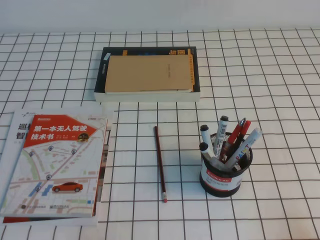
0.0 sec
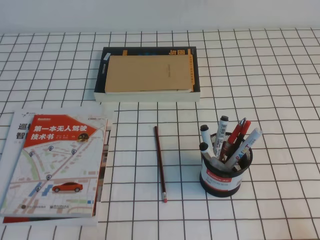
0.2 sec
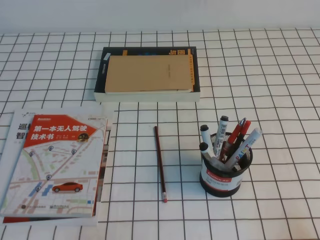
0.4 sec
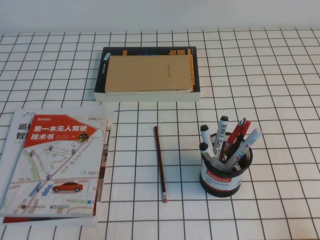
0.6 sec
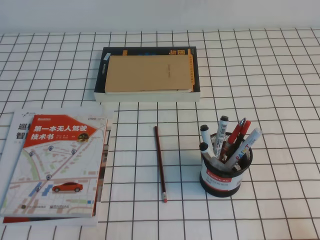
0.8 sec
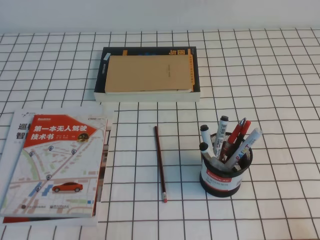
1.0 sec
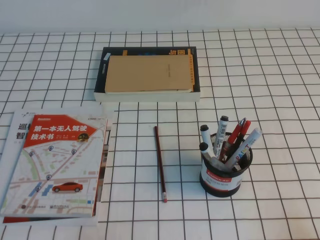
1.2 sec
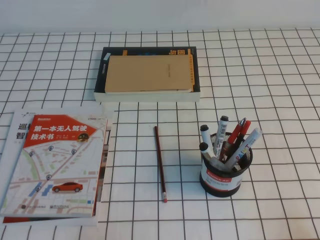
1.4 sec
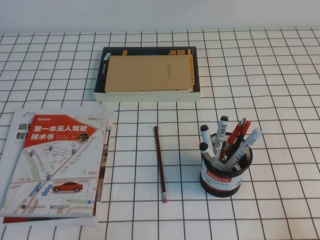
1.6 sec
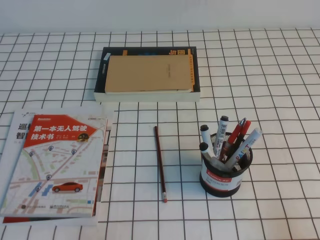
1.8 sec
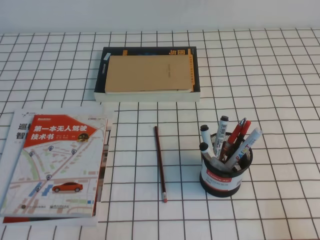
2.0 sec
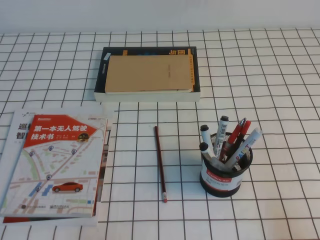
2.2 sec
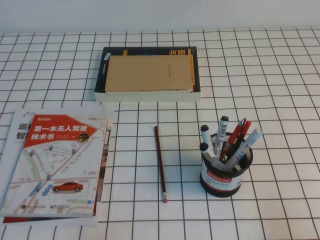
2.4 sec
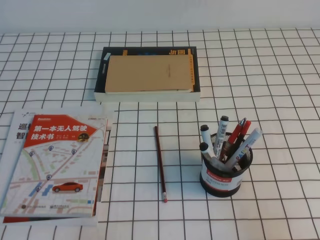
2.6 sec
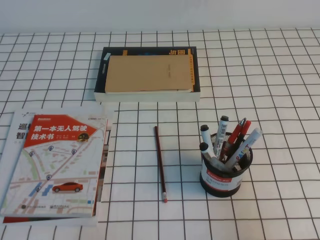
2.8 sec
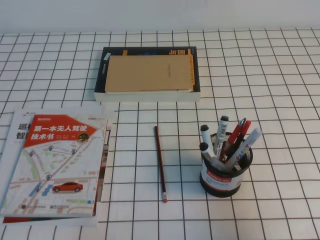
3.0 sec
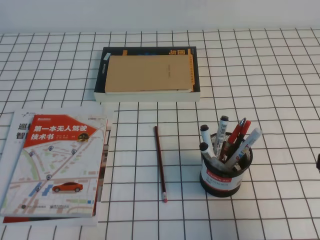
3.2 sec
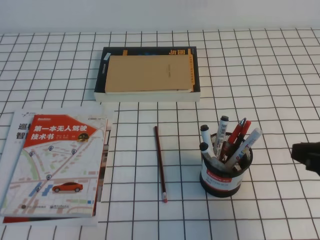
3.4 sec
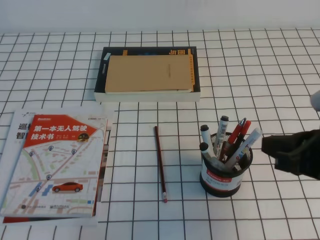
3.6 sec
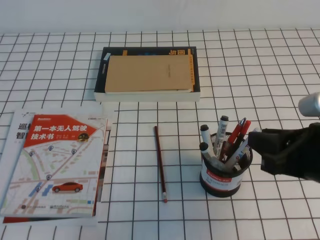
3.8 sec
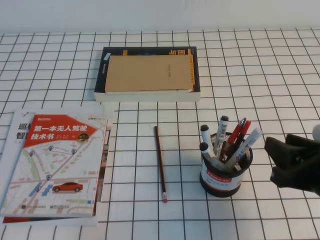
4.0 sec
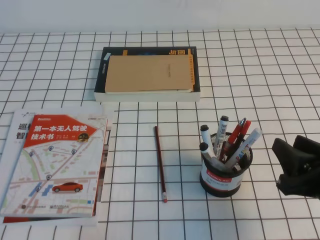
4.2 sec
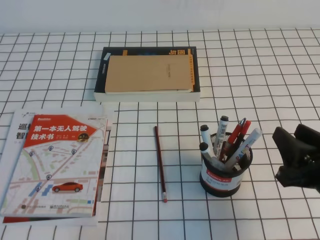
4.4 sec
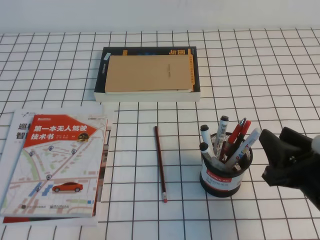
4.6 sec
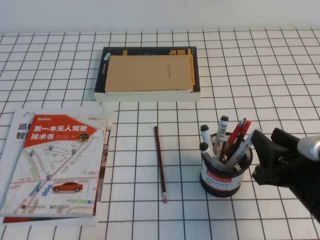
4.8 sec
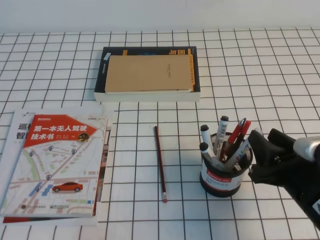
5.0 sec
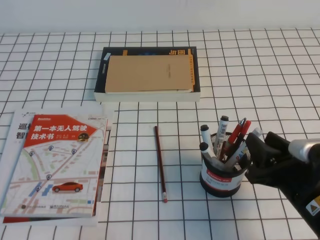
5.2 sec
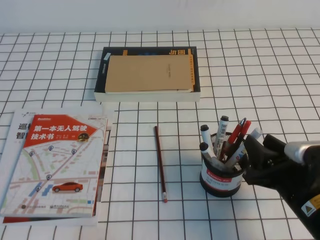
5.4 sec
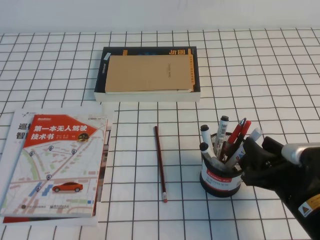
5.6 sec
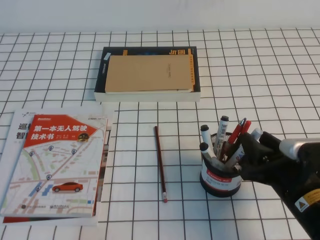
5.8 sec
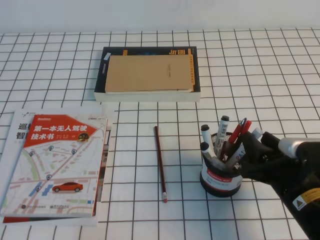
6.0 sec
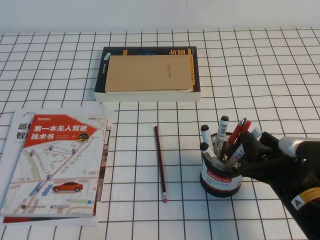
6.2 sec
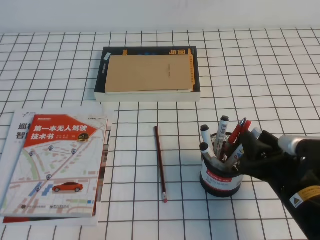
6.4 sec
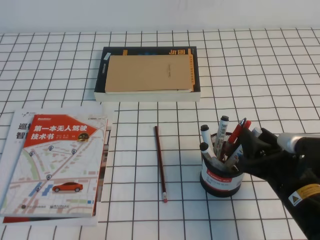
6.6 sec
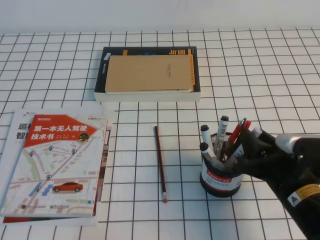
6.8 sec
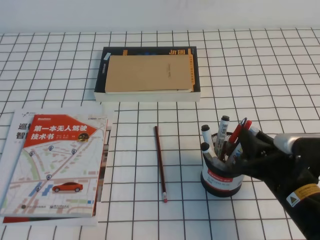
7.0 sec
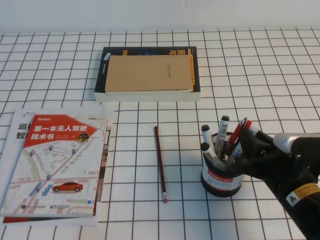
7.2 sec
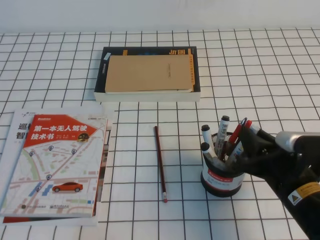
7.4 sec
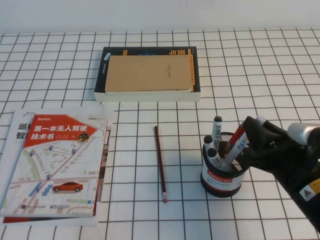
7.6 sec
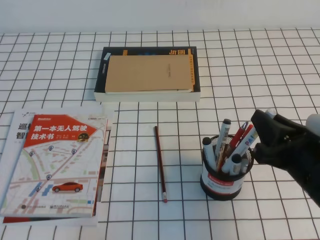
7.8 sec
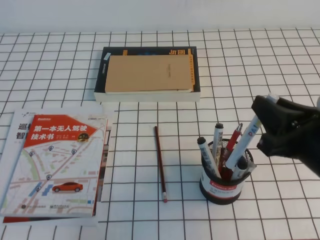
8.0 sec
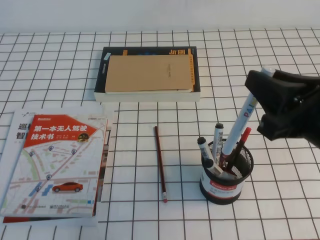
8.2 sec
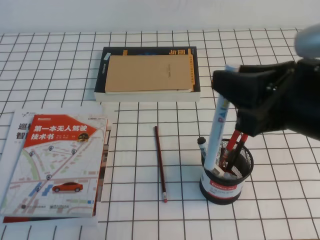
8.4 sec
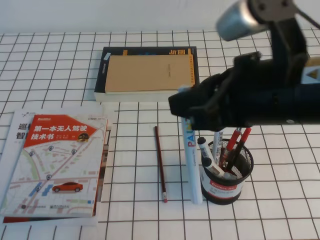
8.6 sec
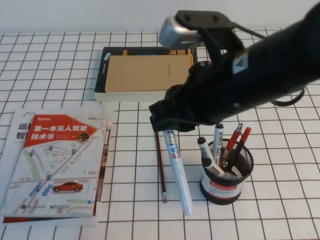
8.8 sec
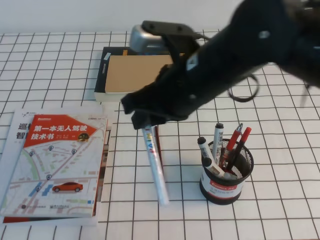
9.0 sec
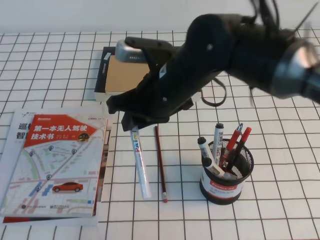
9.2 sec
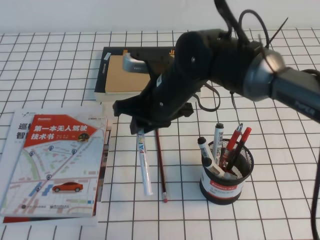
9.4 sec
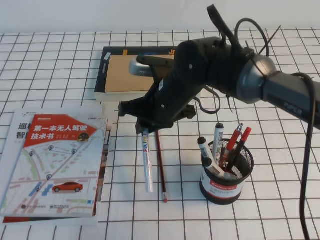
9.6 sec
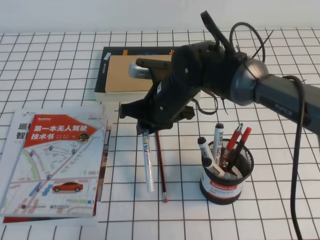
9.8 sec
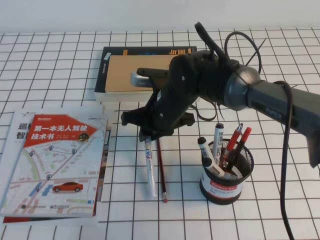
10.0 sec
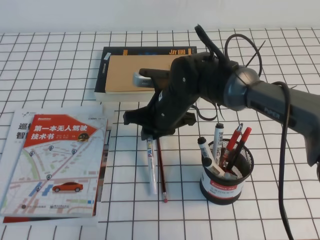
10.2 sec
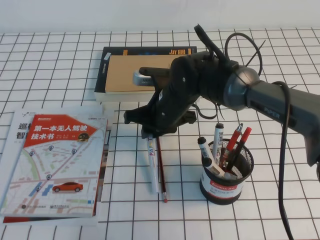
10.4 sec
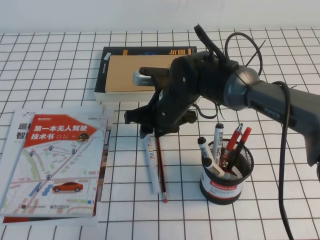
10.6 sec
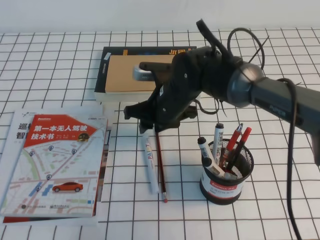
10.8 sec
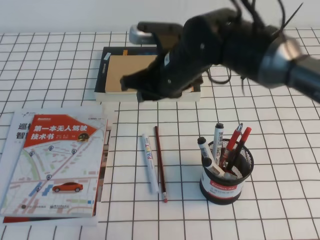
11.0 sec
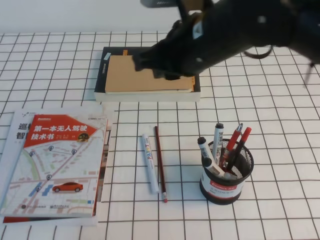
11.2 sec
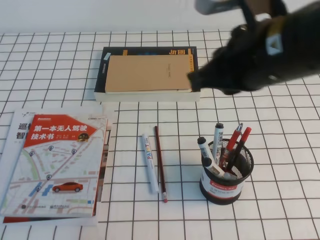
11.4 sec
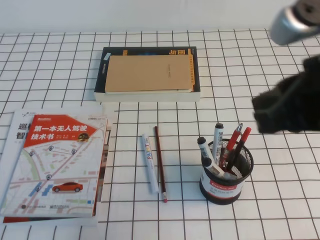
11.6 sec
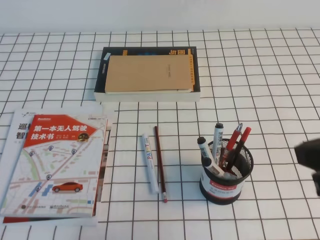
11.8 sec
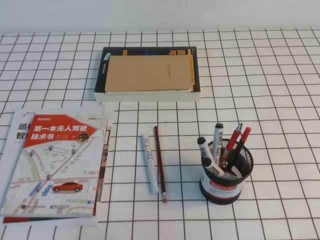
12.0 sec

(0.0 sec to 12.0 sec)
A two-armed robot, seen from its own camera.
1.6 sec - 3.0 sec: The right gripper moves upward and forward, about 10 cm.
3.0 sec - 4.4 sec: The right gripper travels to the left, downward and forward by some 10 cm, and opens its fingers.
4.4 sec - 6.0 sec: The right gripper goes roughly 5 cm downward.
6.0 sec - 7.6 sec: The right gripper closes.
7.6 sec - 9.0 sec: The right gripper shifts about 20 cm upward and to the left.
9.0 sec - 10.4 sec: The right gripper goes roughly 20 cm downward and forward.
10.4 sec - 12.0 sec: The right gripper heads backward, to the right and upward, covering approximately 40 cm, and closes.

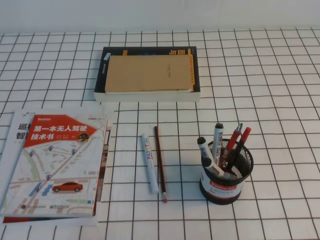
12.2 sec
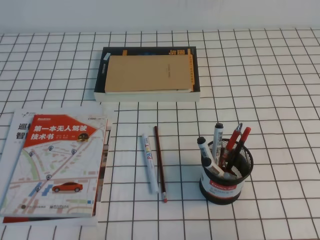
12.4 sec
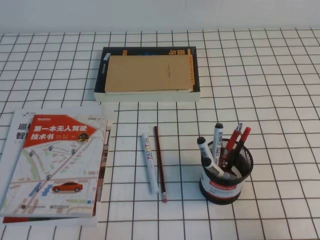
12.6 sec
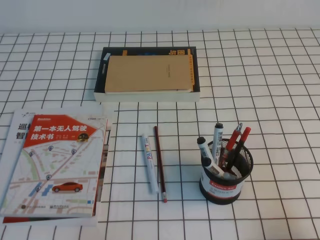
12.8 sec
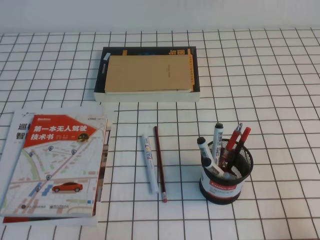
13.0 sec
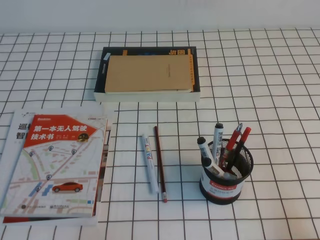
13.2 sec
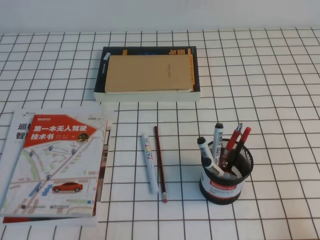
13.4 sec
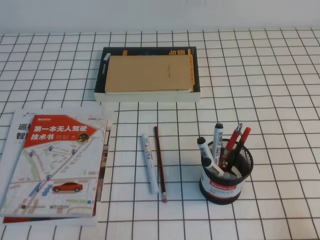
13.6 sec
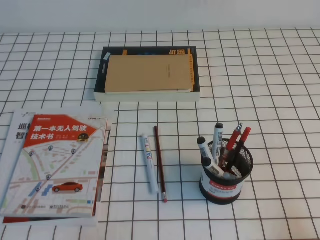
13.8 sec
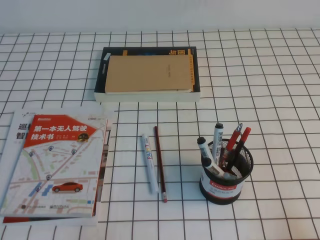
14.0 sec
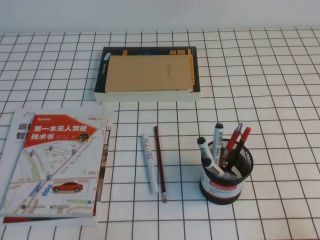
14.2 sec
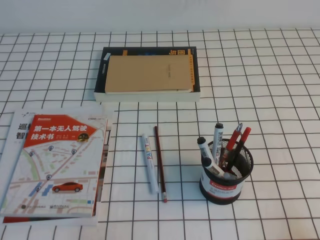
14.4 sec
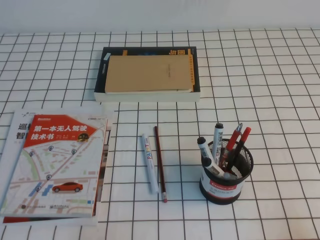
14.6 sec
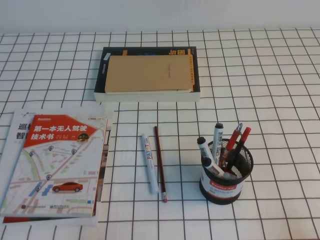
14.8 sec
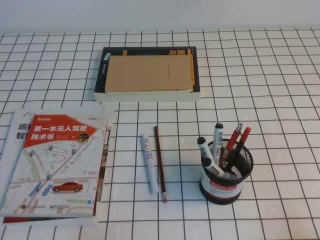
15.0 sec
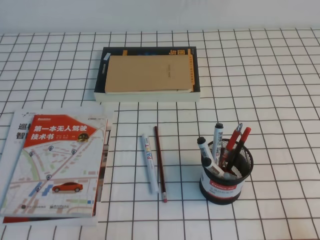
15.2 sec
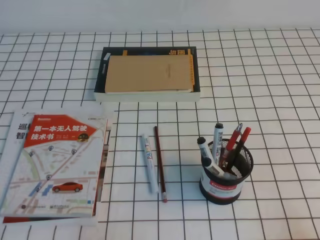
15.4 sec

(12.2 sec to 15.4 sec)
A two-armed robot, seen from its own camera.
12.2 sec - 13.8 sec: The right gripper shifts about 15 cm downward and to the right.
